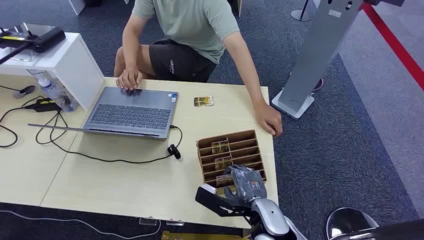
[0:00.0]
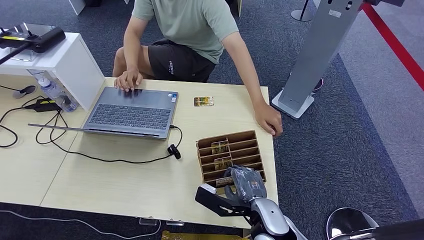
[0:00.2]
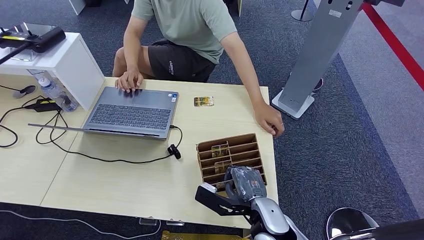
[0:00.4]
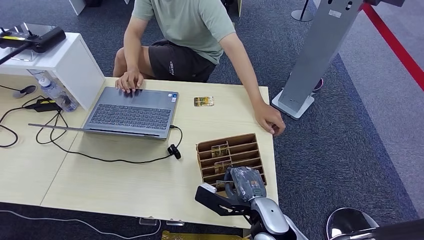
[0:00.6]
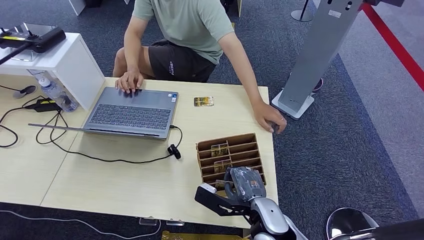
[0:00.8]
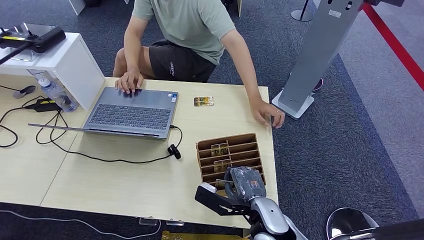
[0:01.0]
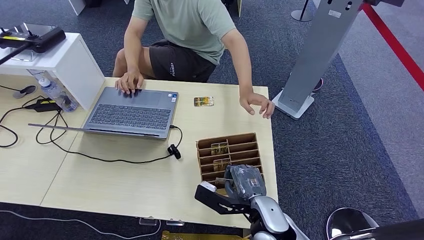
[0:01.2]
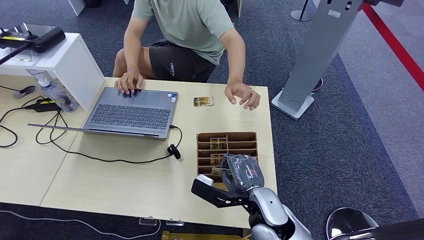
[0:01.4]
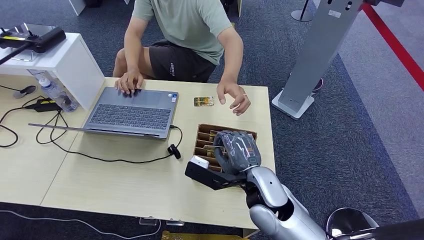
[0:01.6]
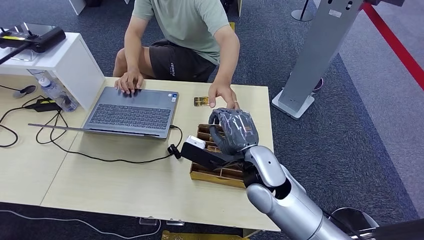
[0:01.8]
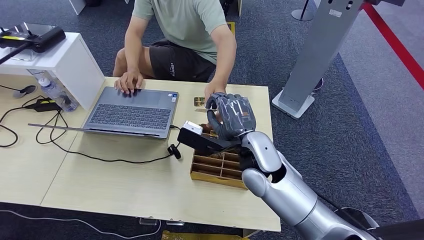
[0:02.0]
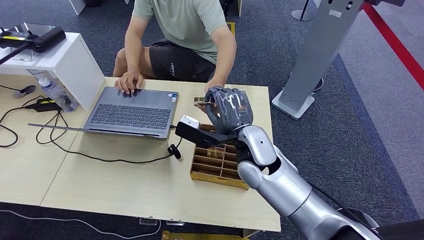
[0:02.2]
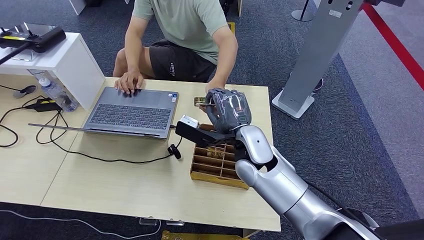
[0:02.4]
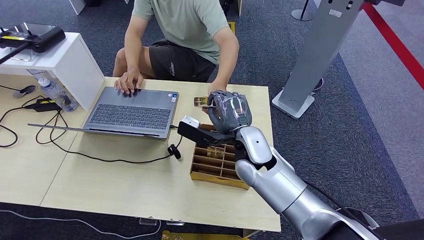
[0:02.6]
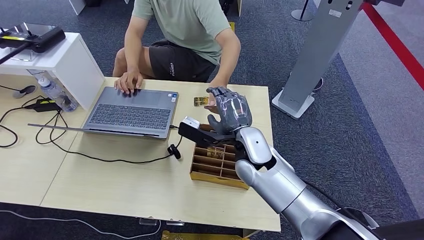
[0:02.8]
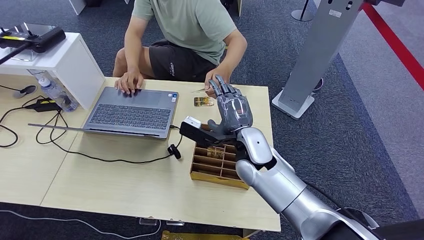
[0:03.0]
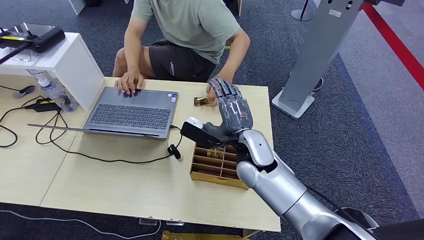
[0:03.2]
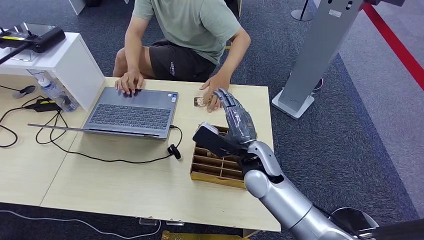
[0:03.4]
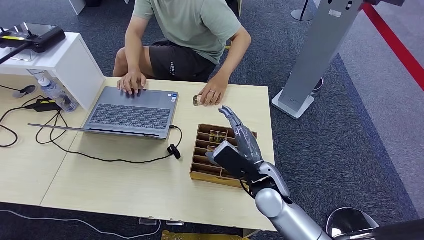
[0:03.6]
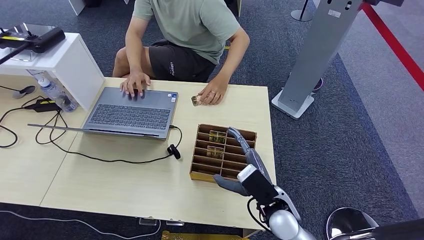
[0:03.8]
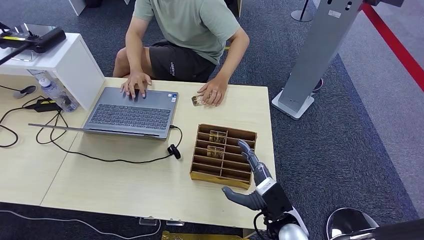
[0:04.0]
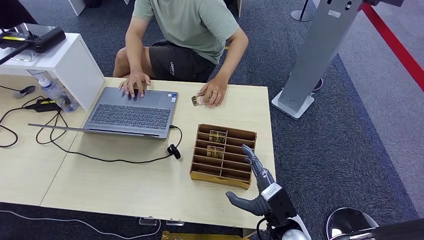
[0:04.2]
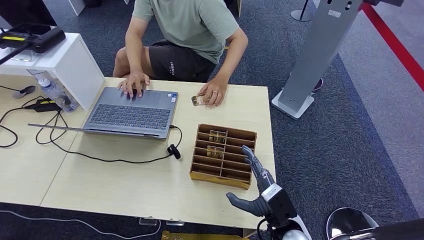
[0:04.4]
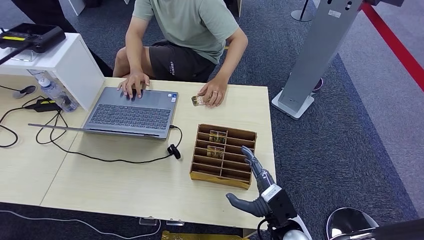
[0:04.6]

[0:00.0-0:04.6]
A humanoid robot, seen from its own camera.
Step, 0:00.0 to 0:01.6: Pick up the room card from the card holder.
Step, 0:01.8 to 0:04.6: Hand the room card to the target.
0:01.6 to 0:03.0: There are only small adjustments of the hands.
0:03.0 to 0:04.6: The right hand is displaced downward, backward and to the right by some 25 cm.
